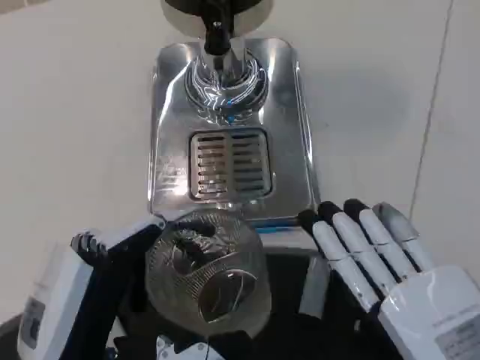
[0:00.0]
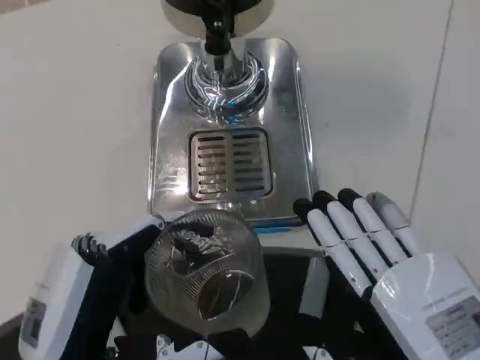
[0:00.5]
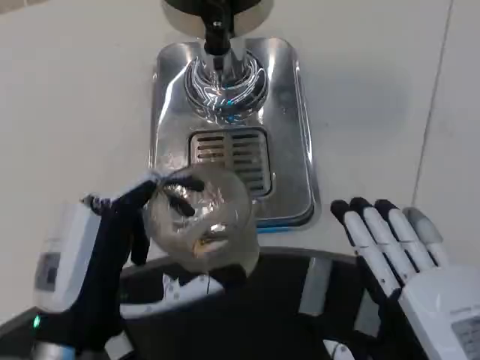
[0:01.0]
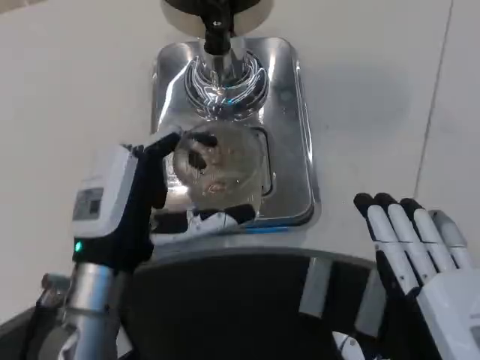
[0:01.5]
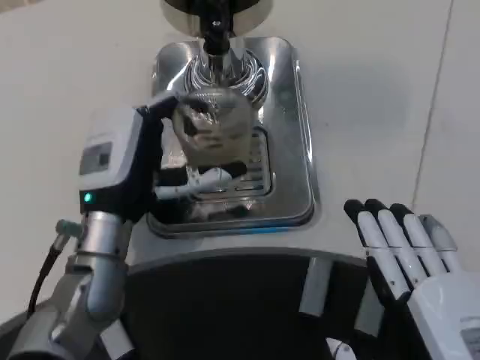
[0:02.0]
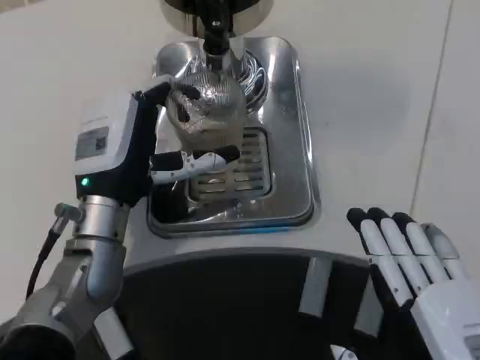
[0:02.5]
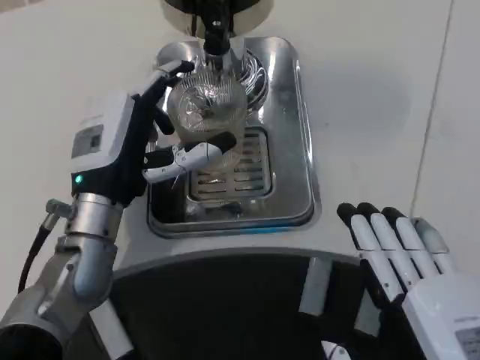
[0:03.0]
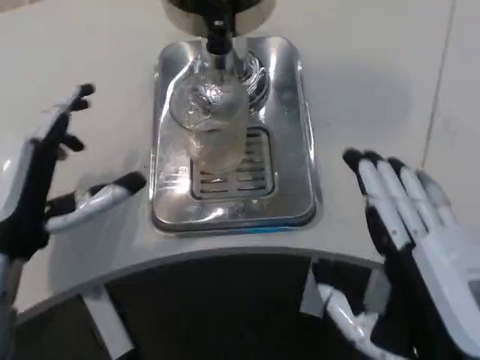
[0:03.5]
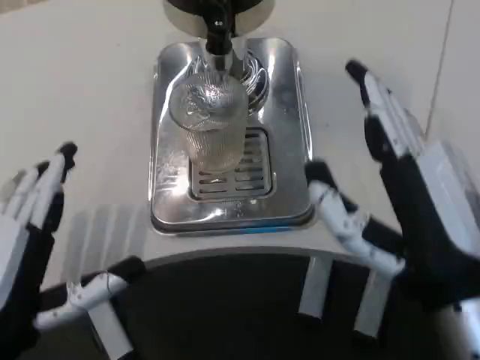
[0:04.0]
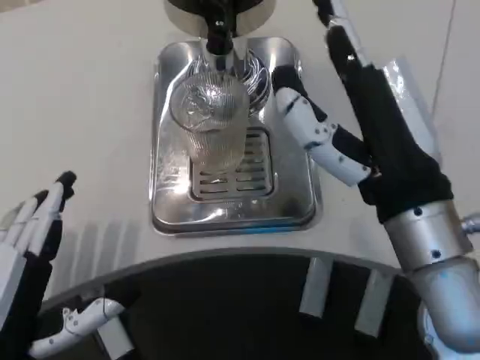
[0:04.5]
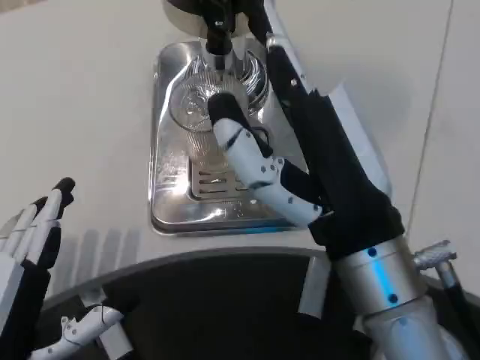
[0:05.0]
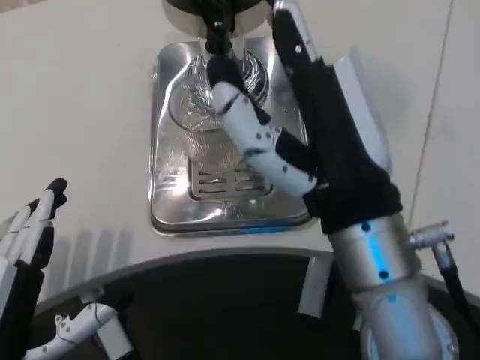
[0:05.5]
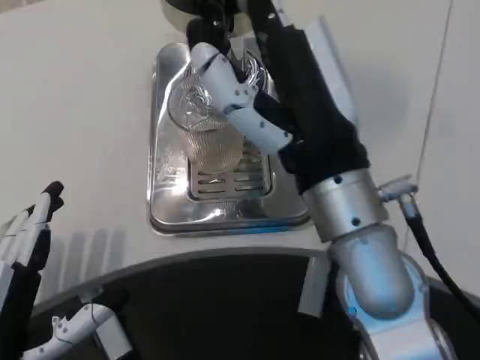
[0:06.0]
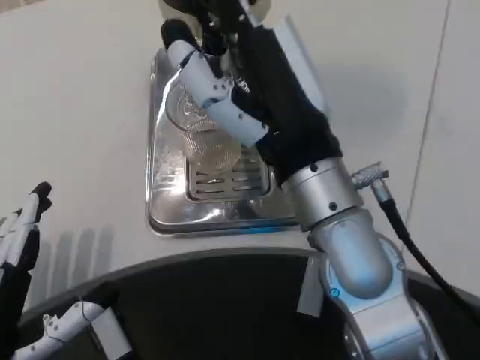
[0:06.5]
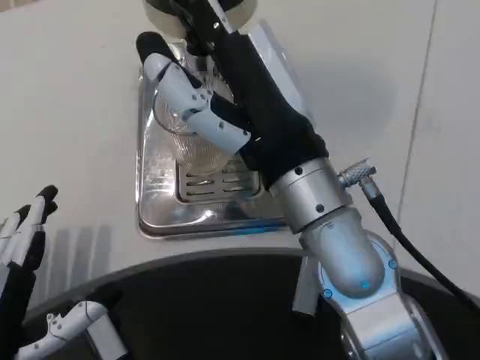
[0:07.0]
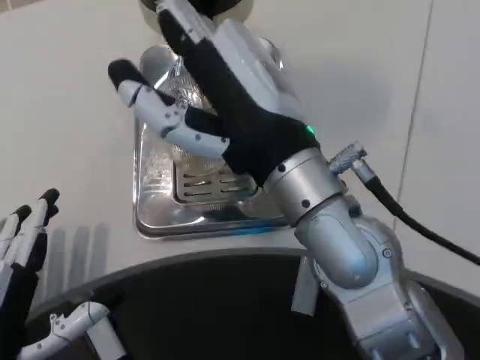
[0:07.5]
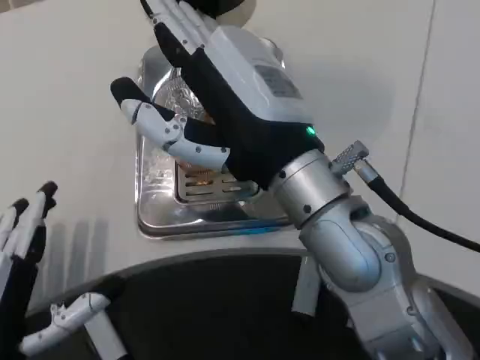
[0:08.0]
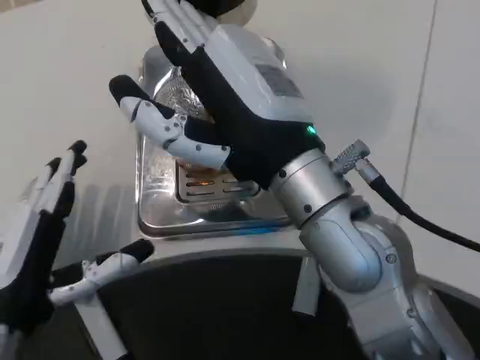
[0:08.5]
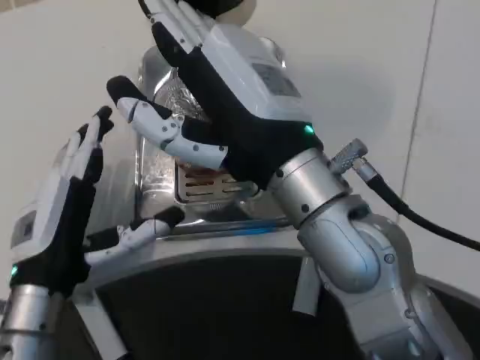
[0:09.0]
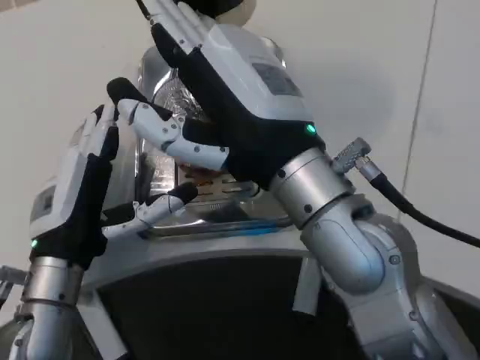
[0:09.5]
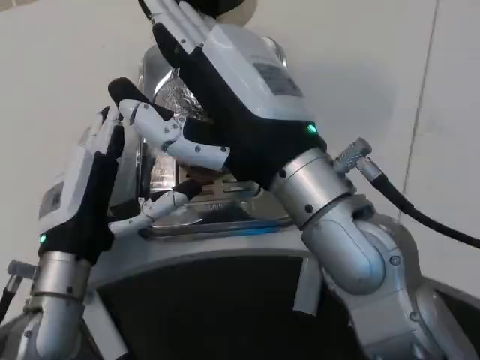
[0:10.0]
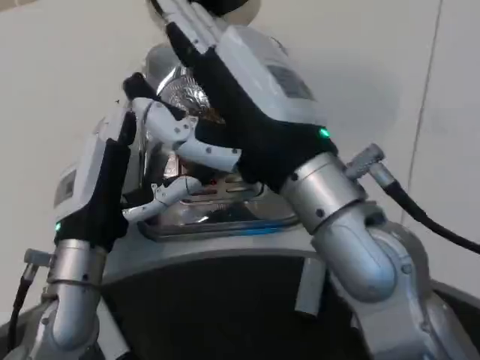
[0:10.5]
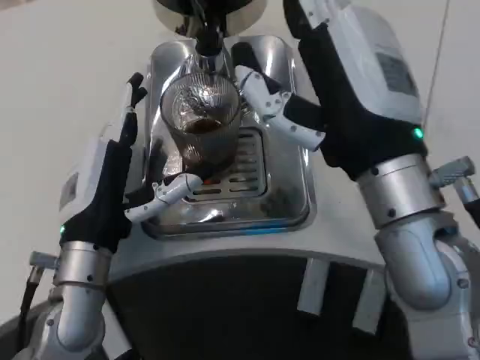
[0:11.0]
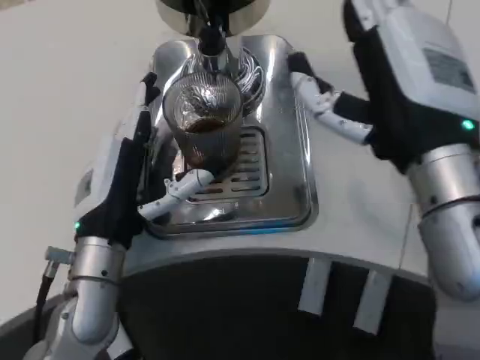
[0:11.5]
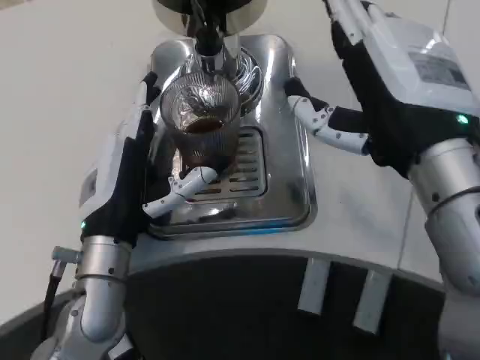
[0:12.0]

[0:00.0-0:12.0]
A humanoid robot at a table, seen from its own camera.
Task of the whole recording: Grasp the cup under the faucet to collect the drink, then remove the cup.
0:00.0 to 0:02.0: The left hand travels forward by roughly 15 cm.
0:02.0 to 0:04.0: The left hand goes approximately 15 cm backward and to the left; the right hand travels forward by about 10 cm.
0:04.0 to 0:06.0: The right hand heads to the left, forward and upward, covering some 10 cm.
0:08.0 to 0:10.0: The left hand heads forward, covering roughly 10 cm.
0:10.0 to 0:12.0: The right hand shifts some 5 cm to the right.

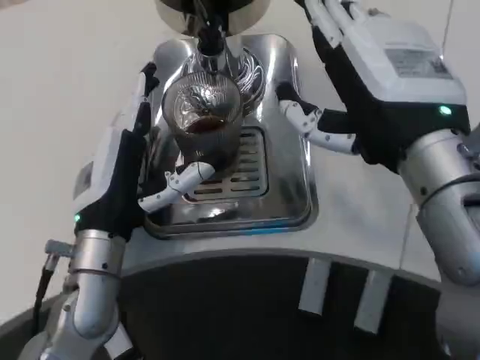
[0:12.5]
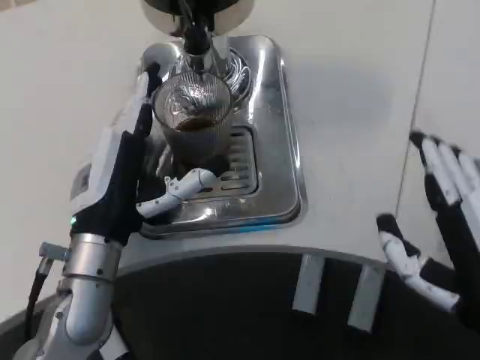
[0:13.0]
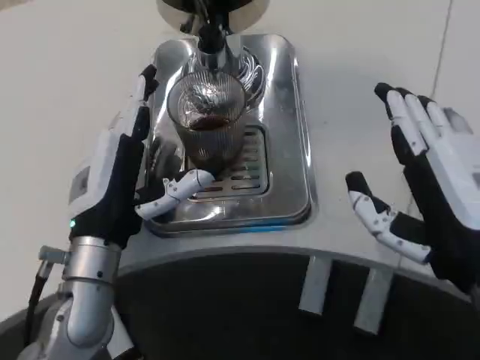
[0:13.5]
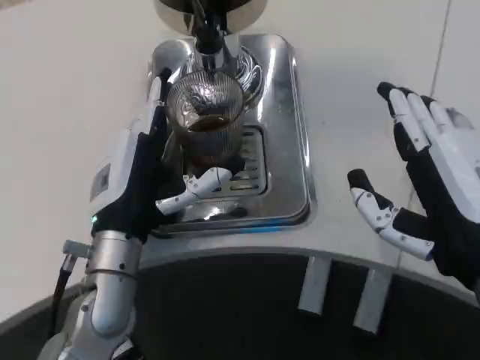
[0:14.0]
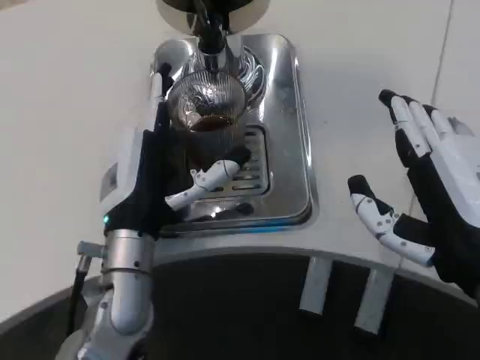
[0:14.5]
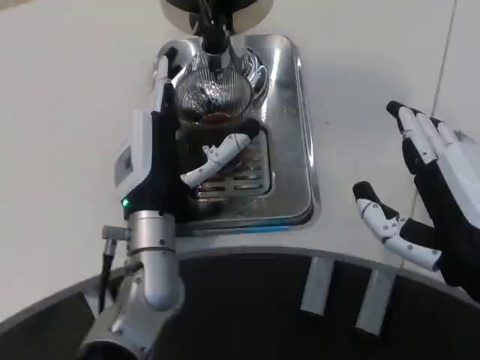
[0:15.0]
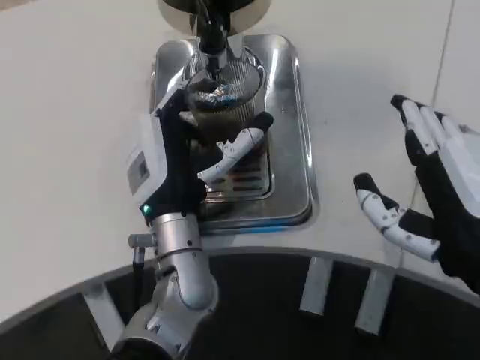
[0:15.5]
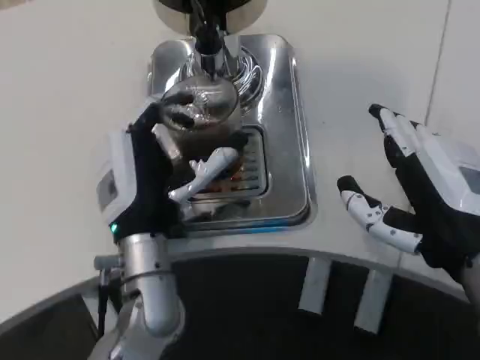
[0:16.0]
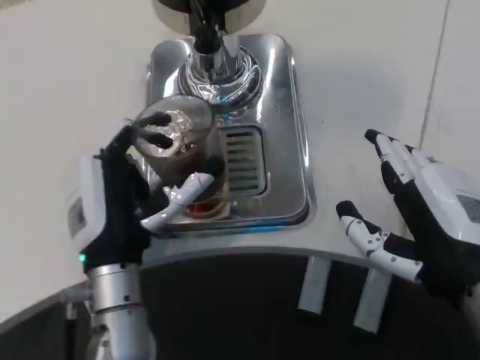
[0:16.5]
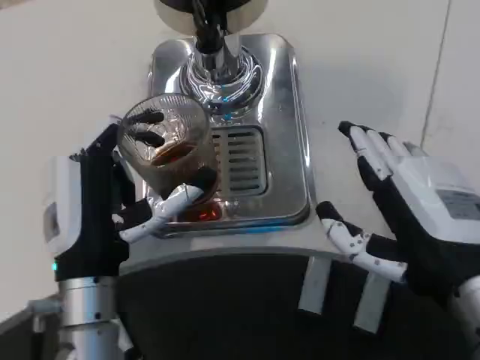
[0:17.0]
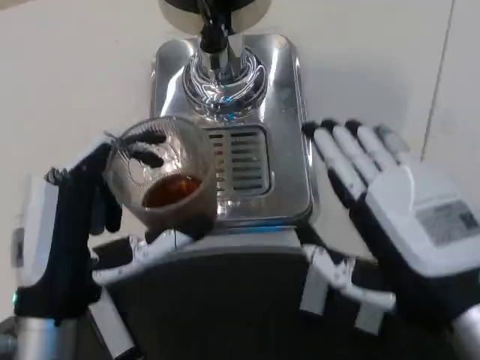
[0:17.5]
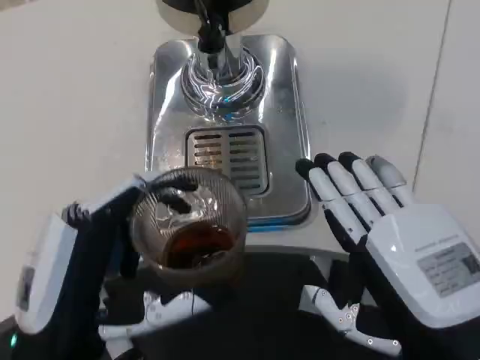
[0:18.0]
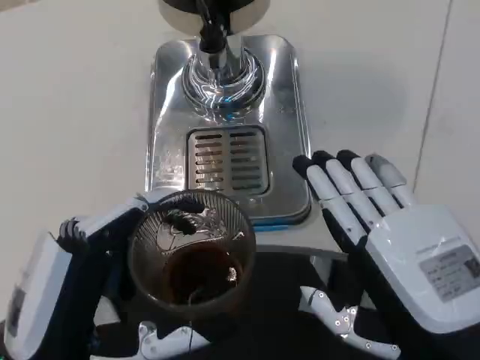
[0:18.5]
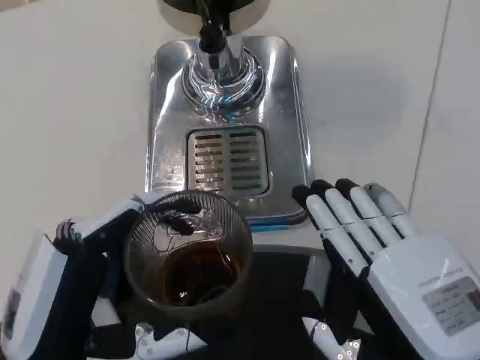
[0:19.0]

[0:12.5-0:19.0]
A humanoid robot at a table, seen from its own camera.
Task of the whole recording: Grasp the cup under the faucet to collect the drink, then remove the cup.
0:12.5 to 0:14.5: The right hand travels downward and backward by some 10 cm.
0:14.5 to 0:17.0: The left hand heads backward, covering some 5 cm, and travels to the right and back again, approximately 5 cm each way.
0:17.0 to 0:19.0: The left hand travels backward by about 10 cm. The right hand goes roughly 5 cm backward.

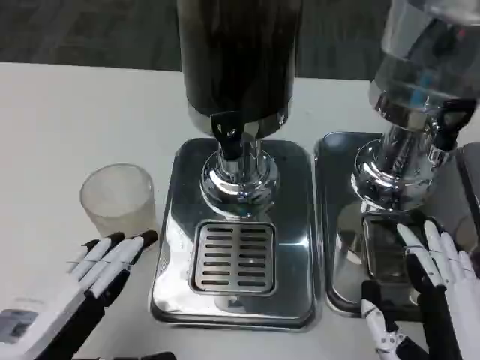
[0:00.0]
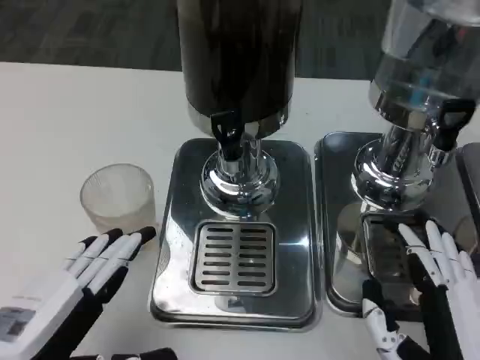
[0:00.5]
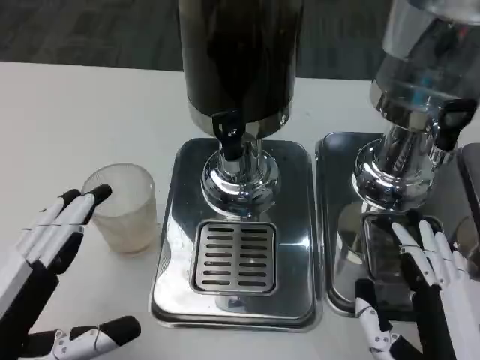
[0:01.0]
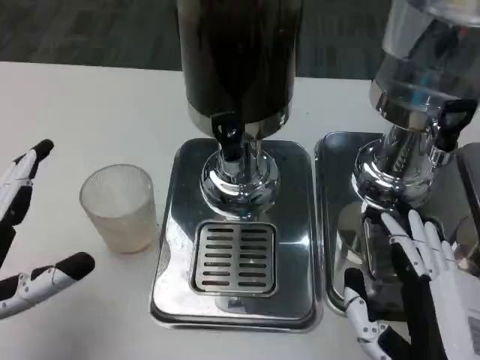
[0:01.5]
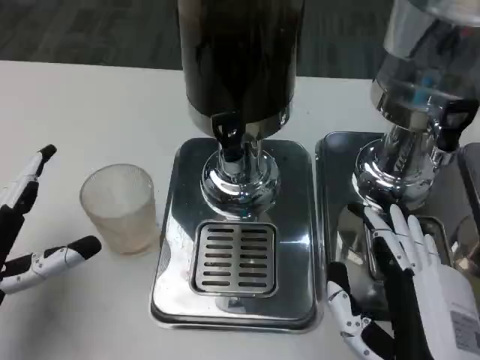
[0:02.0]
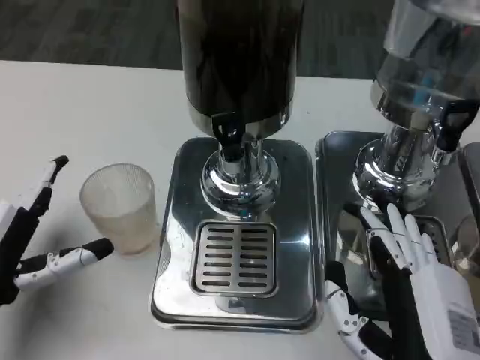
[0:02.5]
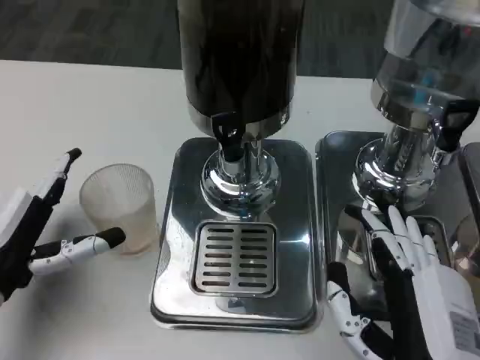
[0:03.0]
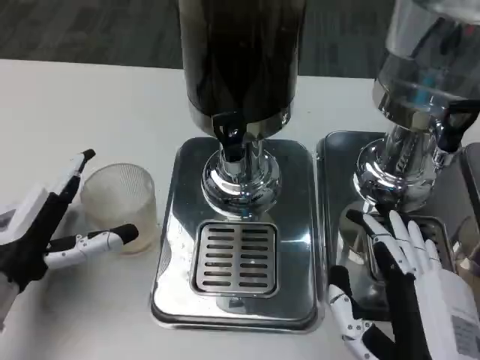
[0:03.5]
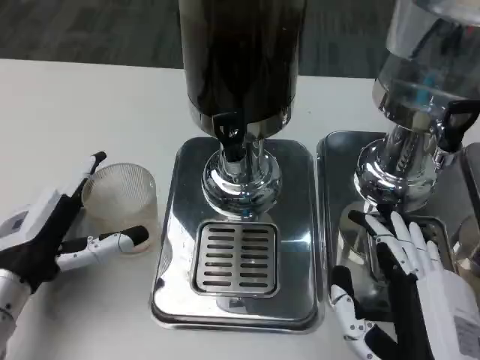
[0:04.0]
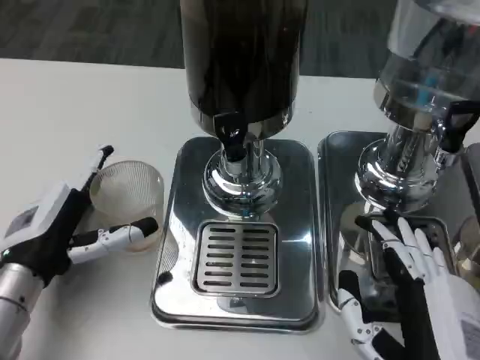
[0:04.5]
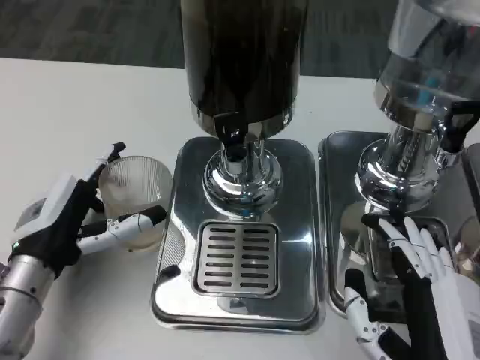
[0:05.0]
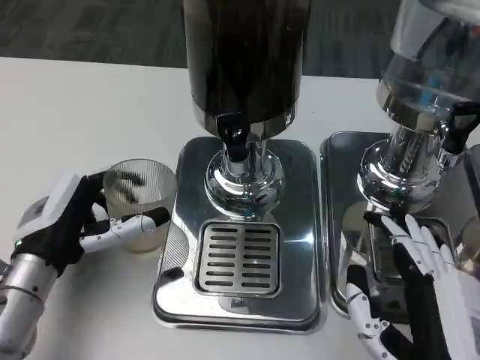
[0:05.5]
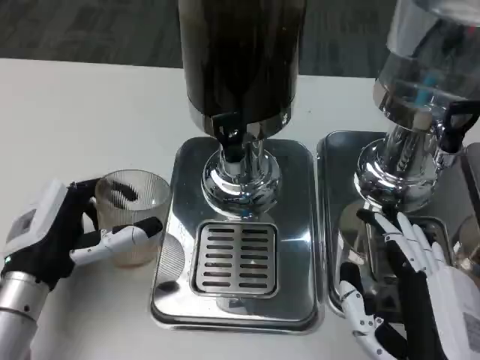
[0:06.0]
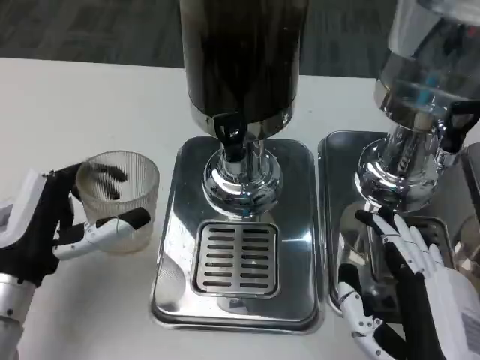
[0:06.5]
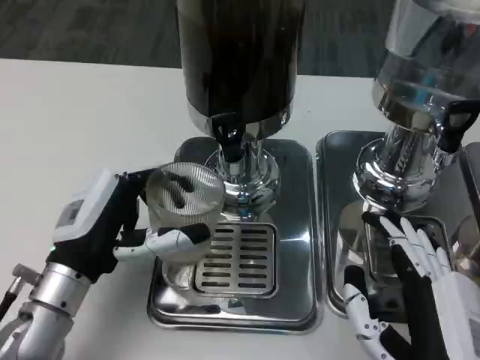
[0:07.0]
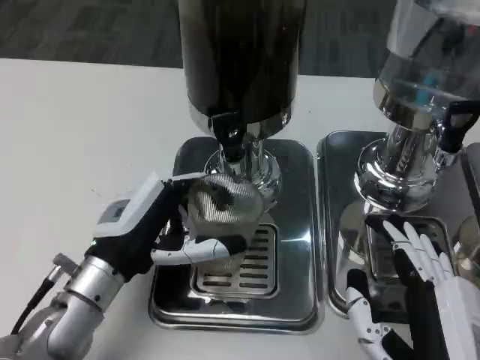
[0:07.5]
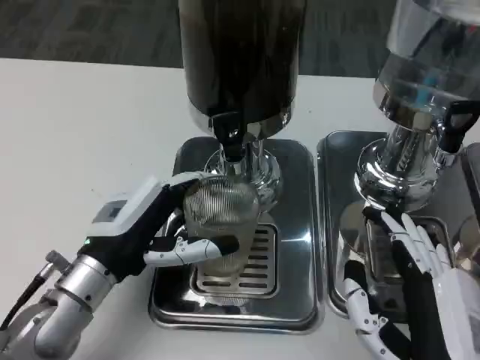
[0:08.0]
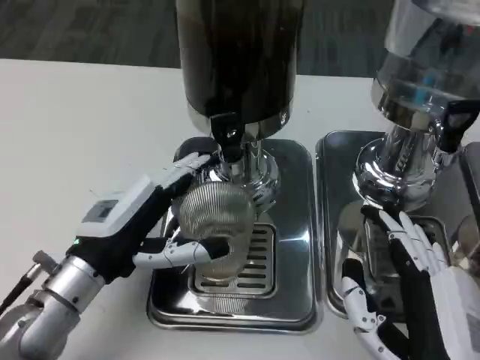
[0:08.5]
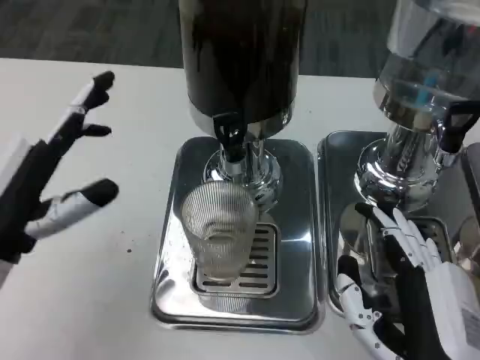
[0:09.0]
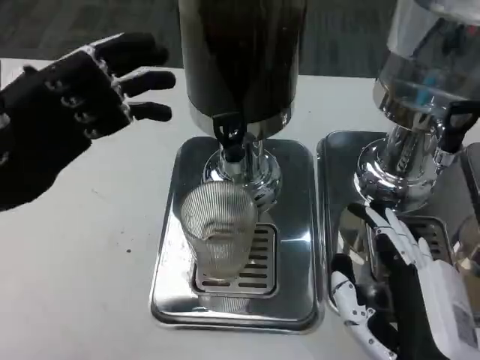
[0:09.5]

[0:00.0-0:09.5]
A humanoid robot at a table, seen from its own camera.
Task of the whole recording: Grasp the cup under the faucet to collect the drink, then remove the cup.
0:00.0 to 0:02.0: The left hand travels forward and to the left by approximately 10 cm.
0:02.0 to 0:04.0: The left hand moves some 5 cm.
0:05.5 to 0:07.5: The left hand heads to the right, covering about 5 cm.
0:07.5 to 0:09.5: The left hand shifts approximately 15 cm upward and to the left.
